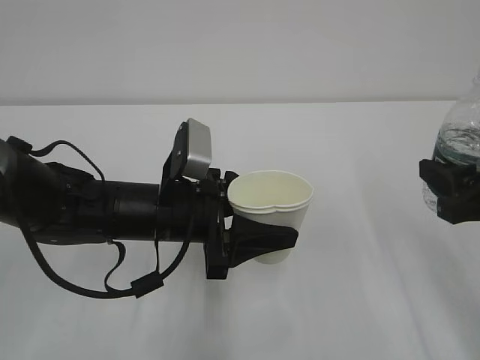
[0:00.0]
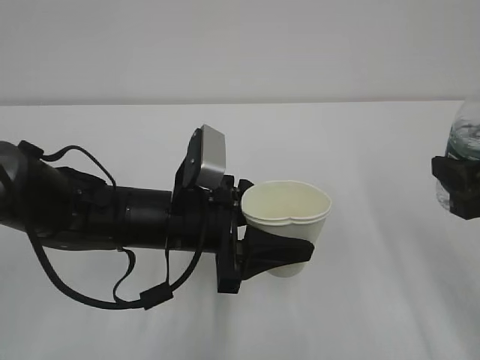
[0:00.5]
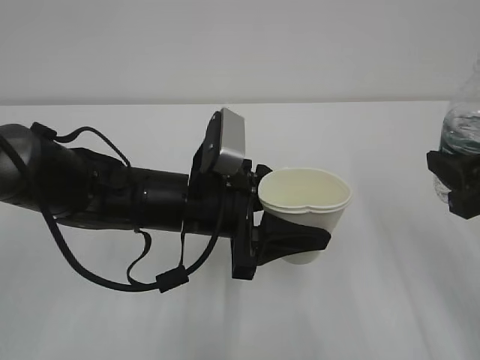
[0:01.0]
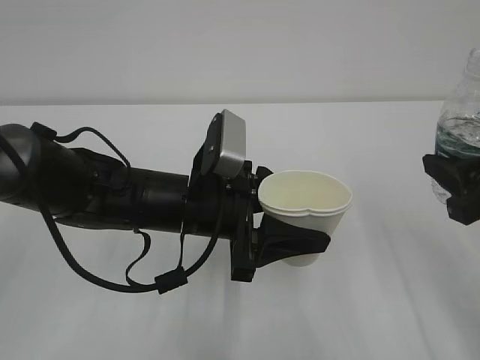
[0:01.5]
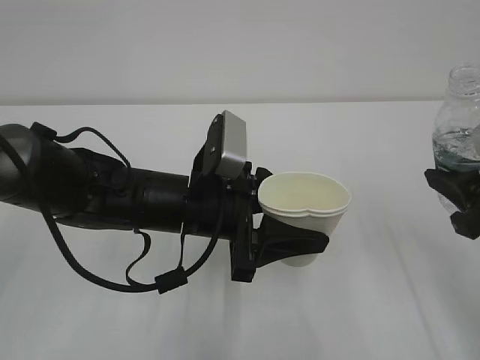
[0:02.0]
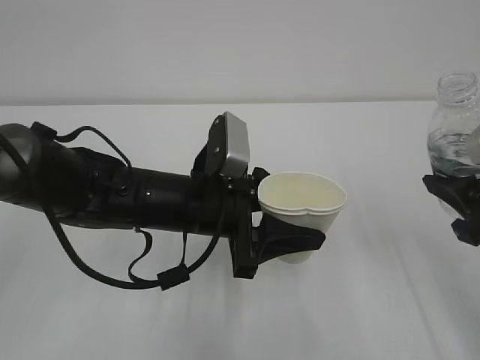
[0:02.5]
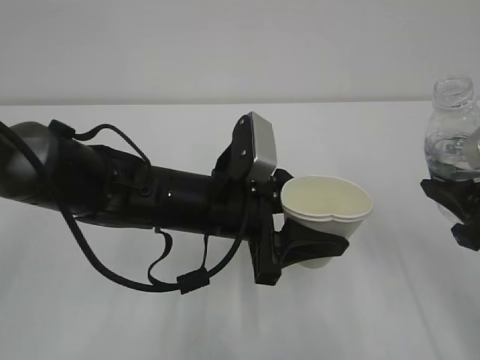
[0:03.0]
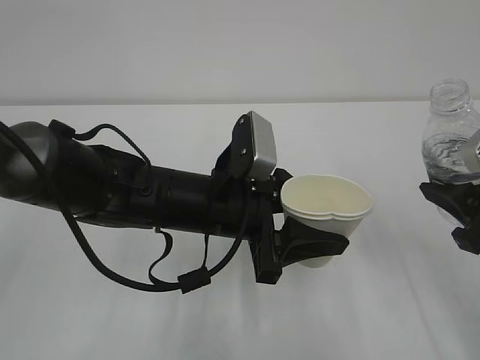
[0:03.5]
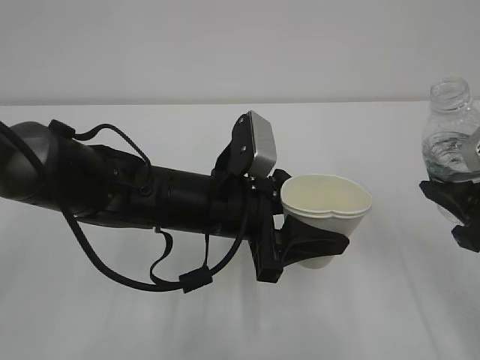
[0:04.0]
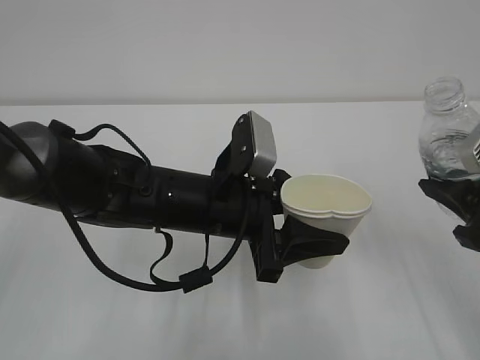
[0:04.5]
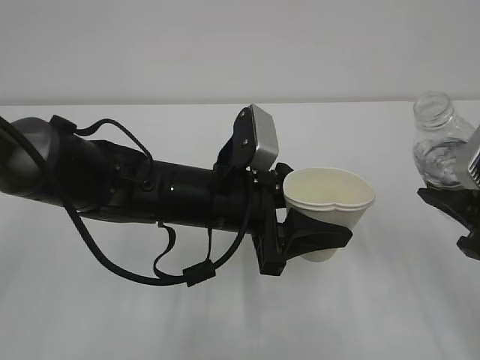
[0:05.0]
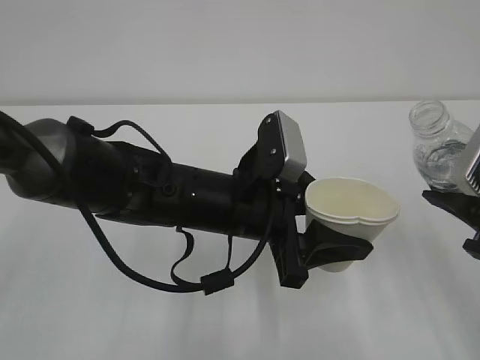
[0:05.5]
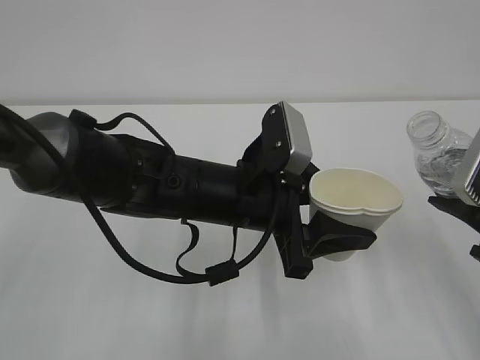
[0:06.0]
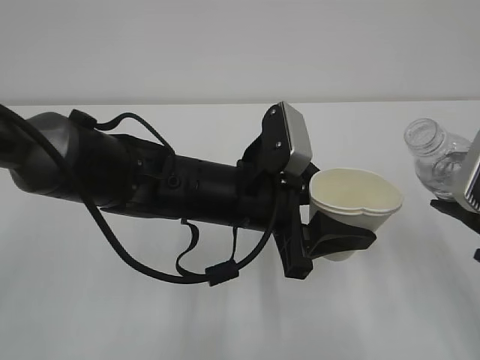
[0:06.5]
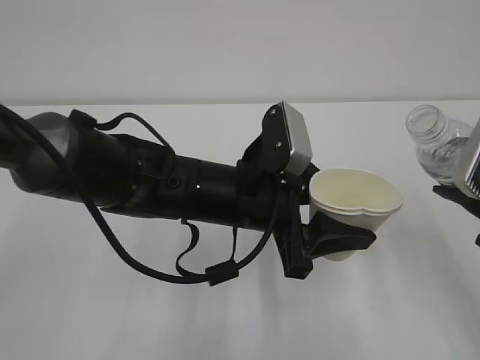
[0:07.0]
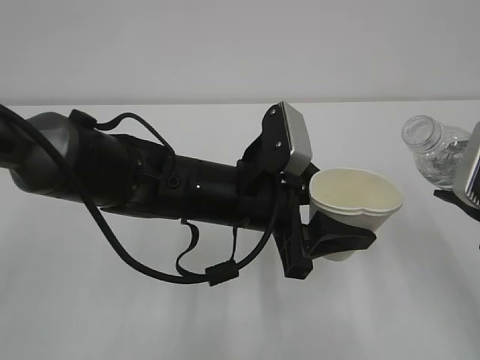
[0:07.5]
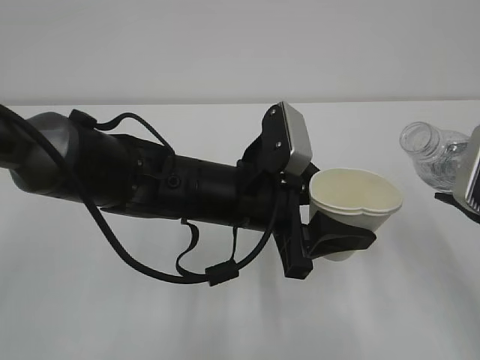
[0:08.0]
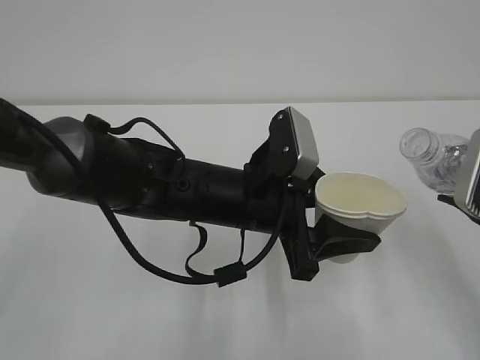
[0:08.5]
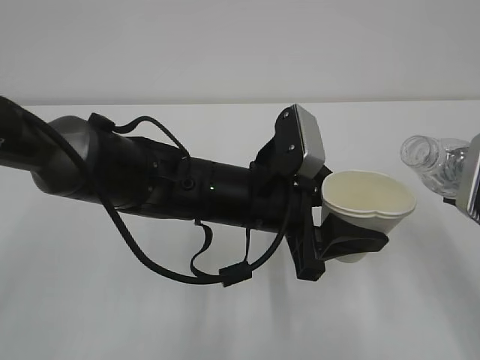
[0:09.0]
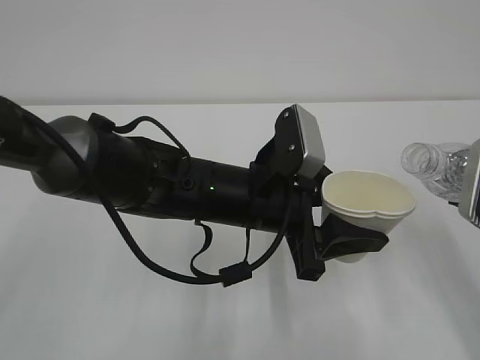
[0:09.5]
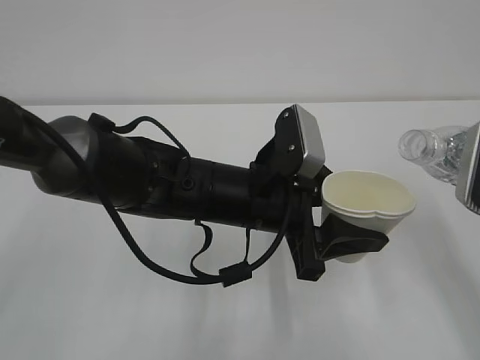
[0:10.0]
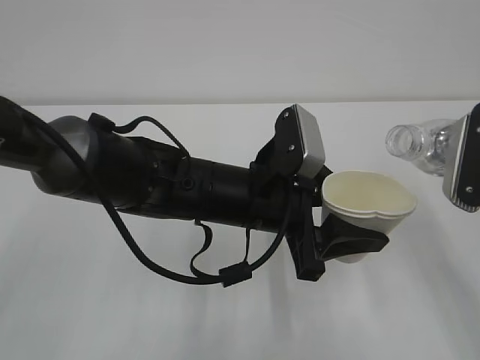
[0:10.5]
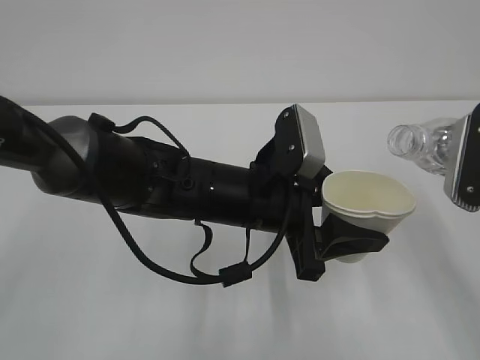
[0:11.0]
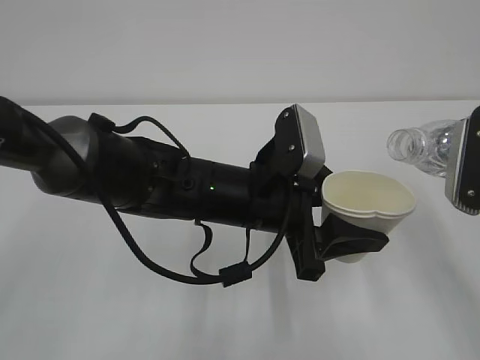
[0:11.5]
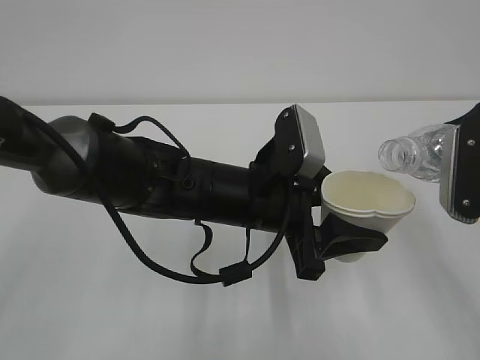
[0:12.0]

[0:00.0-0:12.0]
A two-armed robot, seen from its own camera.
0:00.0 to 0:02.0: The grippers make only small movements.
0:02.0 to 0:04.0: The grippers stay close to where they were, moving slightly.
0:04.0 to 0:06.0: There are only small adjustments of the grippers.
0:06.0 to 0:08.0: The grippers make only small movements.
0:08.0 to 0:10.0: The grippers stay close to where they were, moving slightly.
0:10.0 to 0:12.0: The grippers make only small movements.

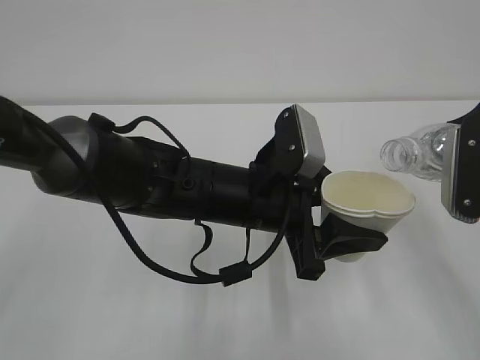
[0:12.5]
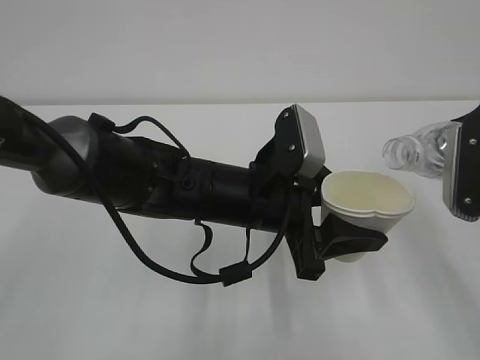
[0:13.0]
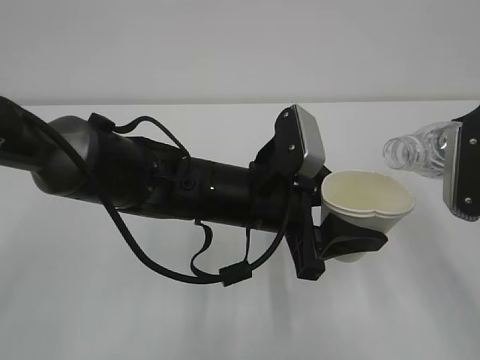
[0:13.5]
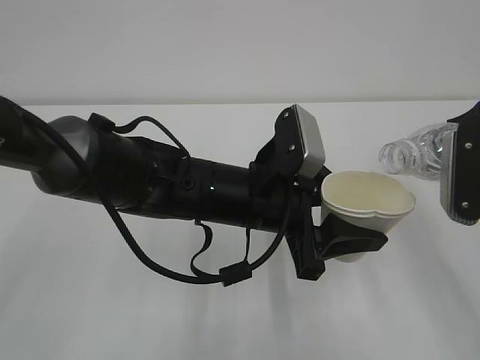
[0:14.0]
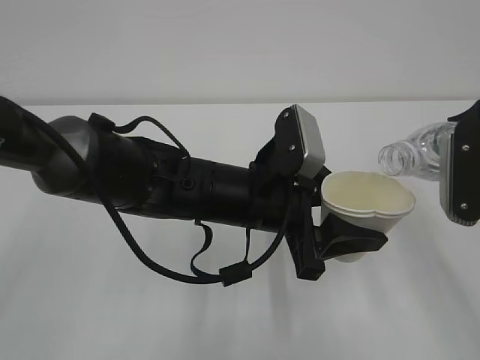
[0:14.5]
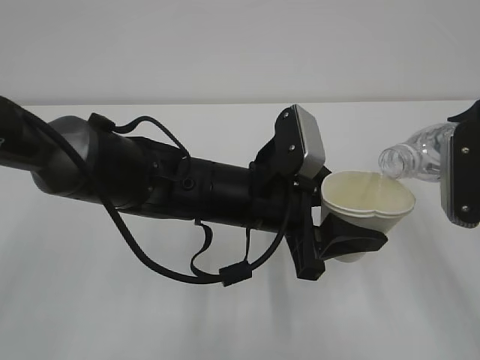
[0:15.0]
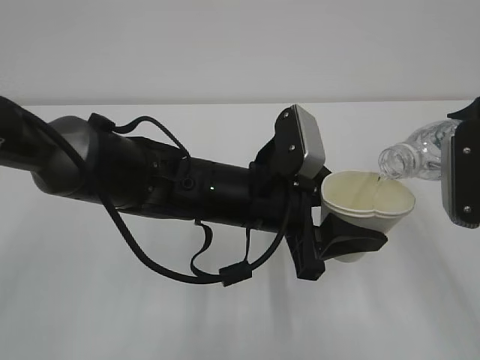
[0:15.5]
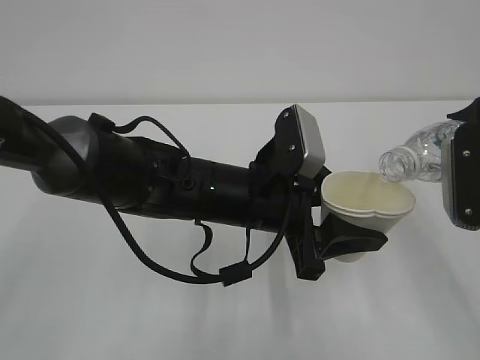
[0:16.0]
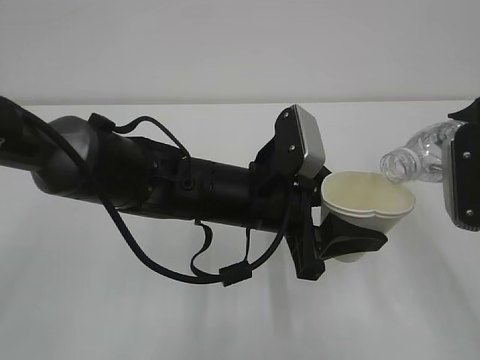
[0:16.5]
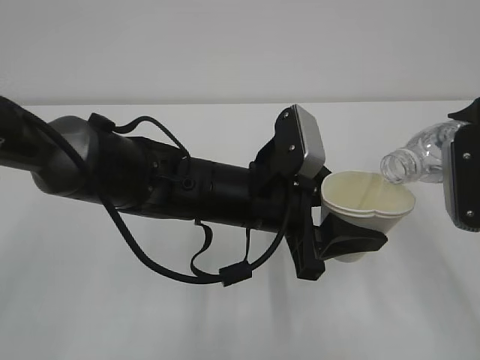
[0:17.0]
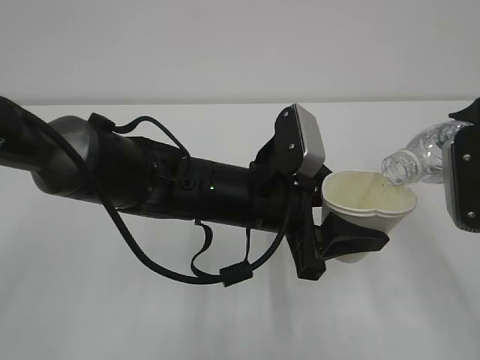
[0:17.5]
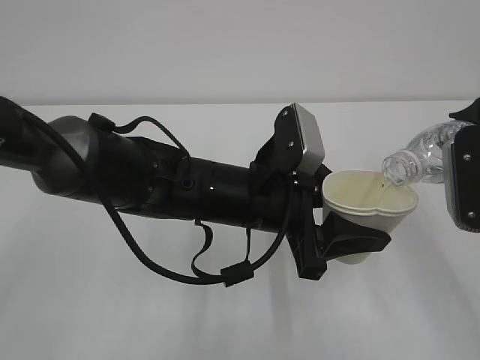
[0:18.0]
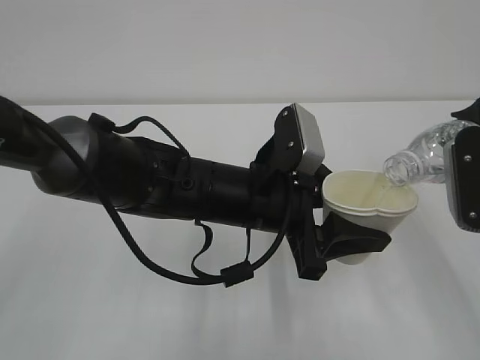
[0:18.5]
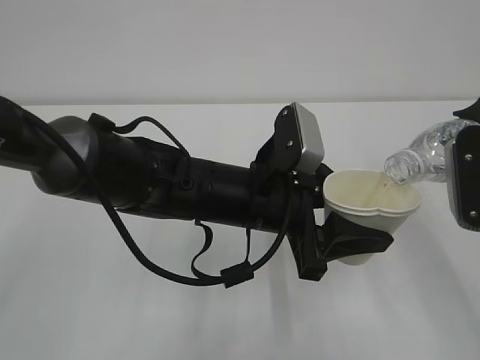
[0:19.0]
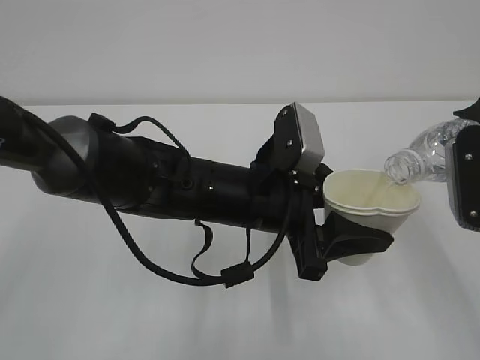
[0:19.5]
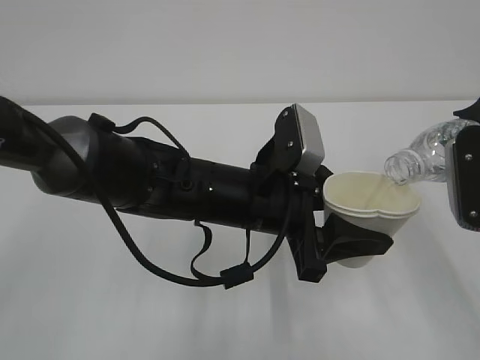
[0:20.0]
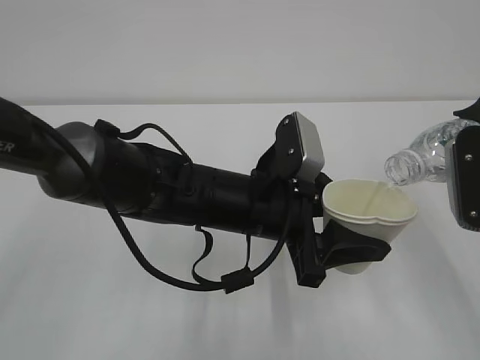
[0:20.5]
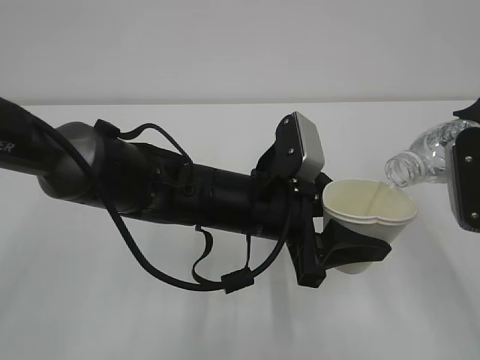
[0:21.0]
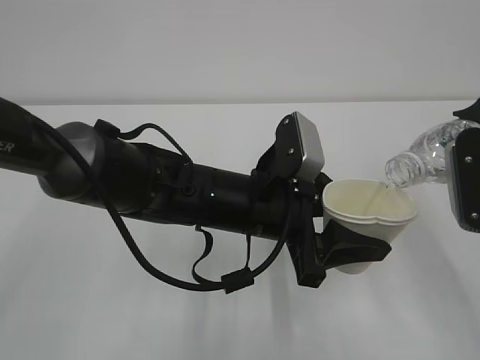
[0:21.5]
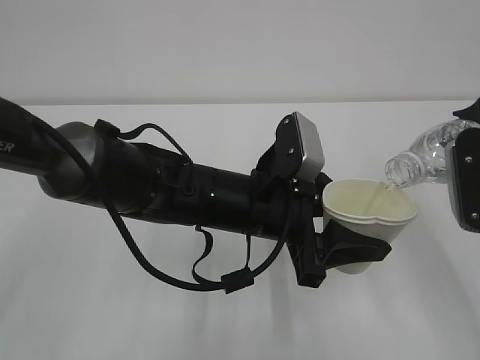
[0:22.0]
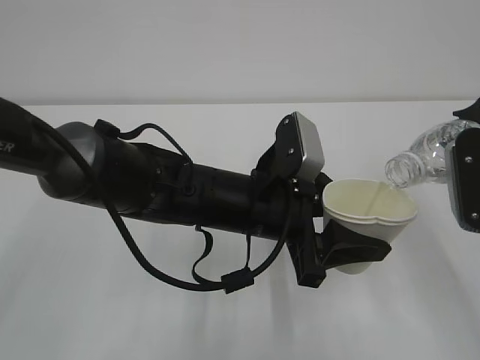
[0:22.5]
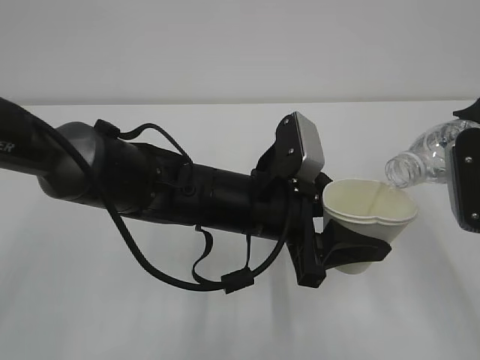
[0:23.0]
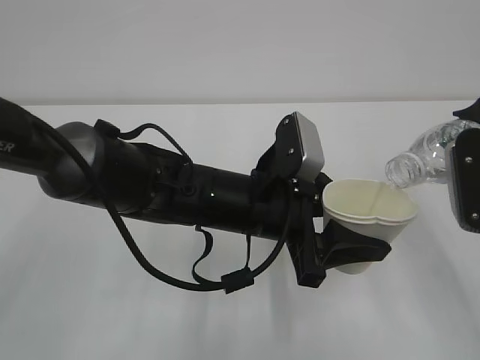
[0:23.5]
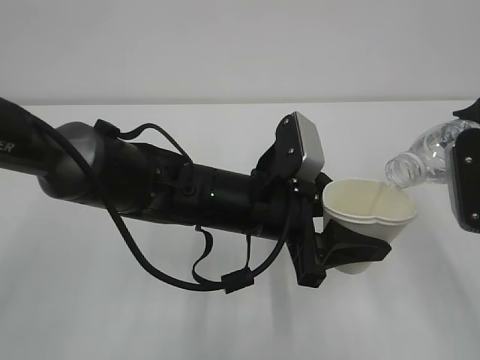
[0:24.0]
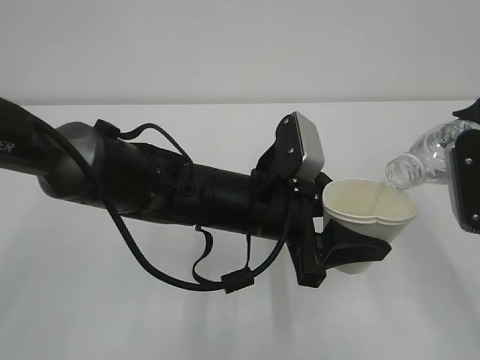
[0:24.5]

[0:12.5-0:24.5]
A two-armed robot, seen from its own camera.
0:12.5 to 0:14.5: Both grippers stay about where they are.
0:14.5 to 0:16.5: The grippers stay close to where they were, moving slightly.
0:16.5 to 0:22.5: Both grippers stay put.
0:22.5 to 0:24.5: Both grippers stay about where they are.

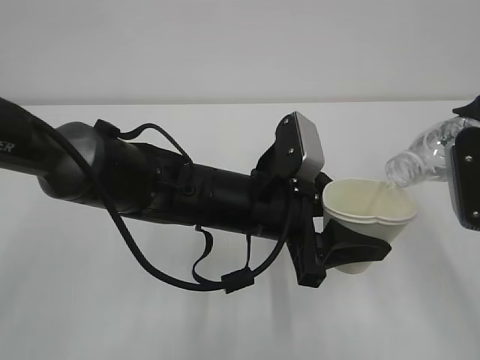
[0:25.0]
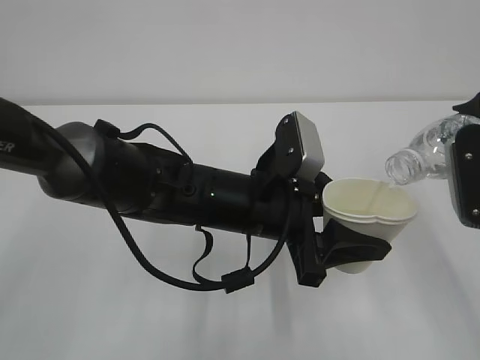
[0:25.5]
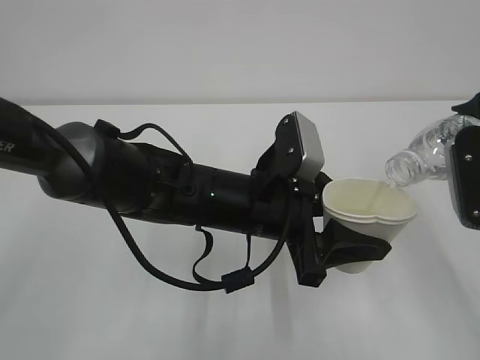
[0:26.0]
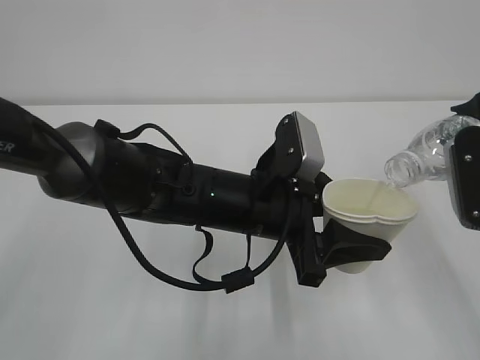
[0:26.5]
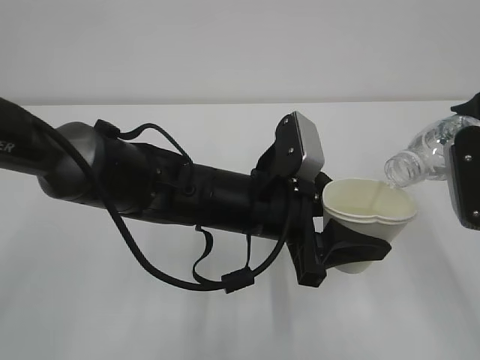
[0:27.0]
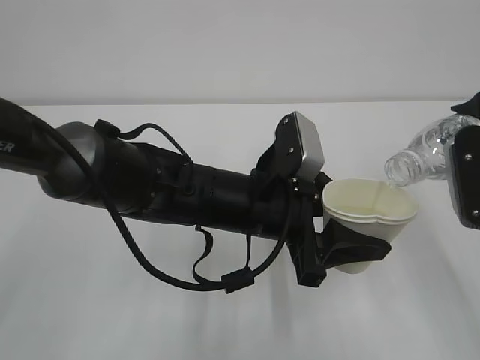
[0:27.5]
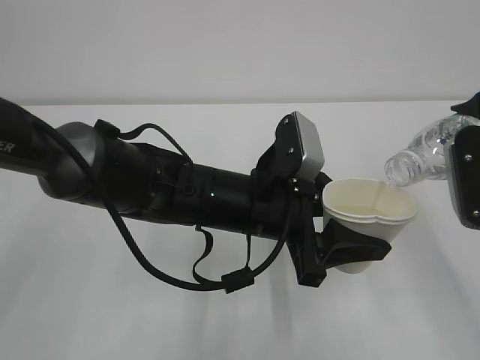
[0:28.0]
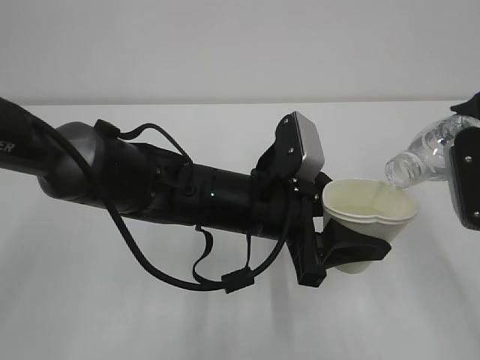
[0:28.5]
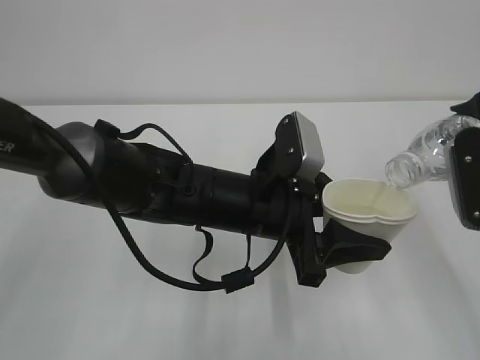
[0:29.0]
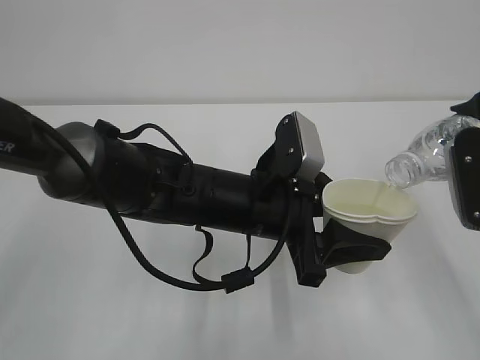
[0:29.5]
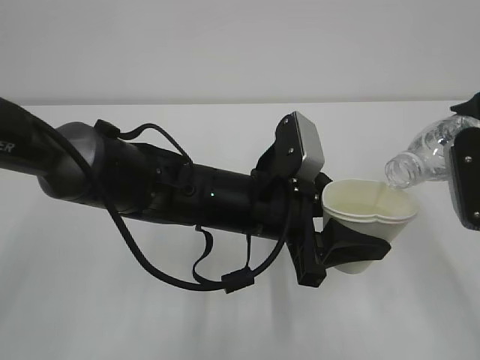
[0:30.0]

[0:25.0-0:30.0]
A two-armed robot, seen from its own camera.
0:25.0 to 0:30.0: The two grippers keep their place.
